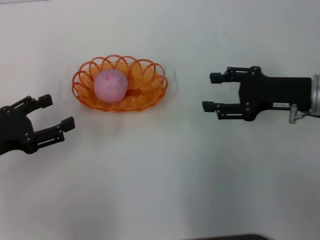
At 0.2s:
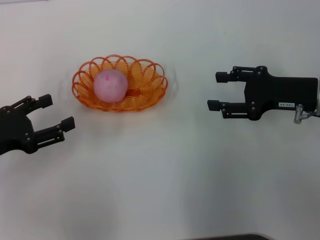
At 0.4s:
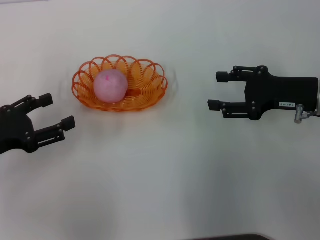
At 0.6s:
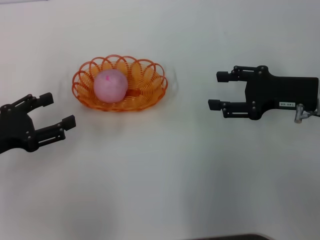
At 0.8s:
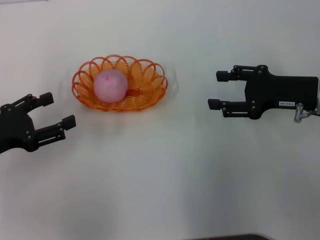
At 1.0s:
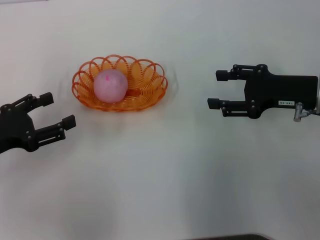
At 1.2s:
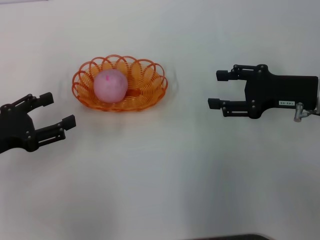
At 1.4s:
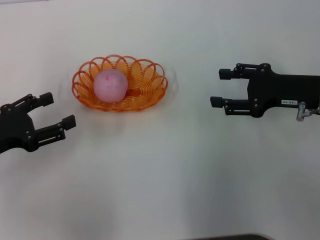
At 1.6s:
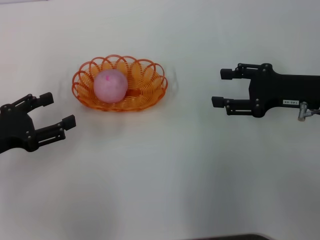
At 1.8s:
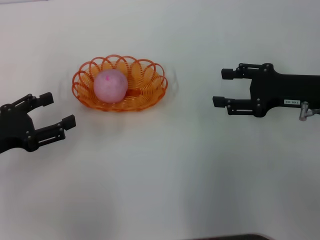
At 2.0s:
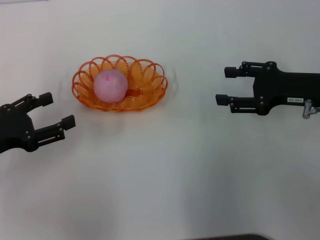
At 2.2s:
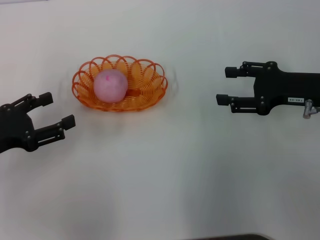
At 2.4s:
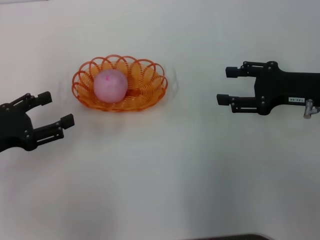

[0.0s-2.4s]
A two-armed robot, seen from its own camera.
0.0s to 1.2s: Neither gripper changes place.
1.2s to 2.4s: Both grippers stay about where they are.

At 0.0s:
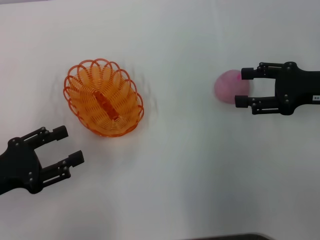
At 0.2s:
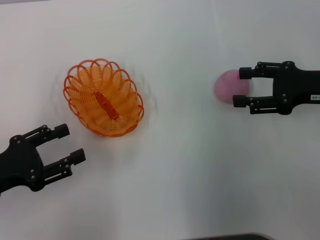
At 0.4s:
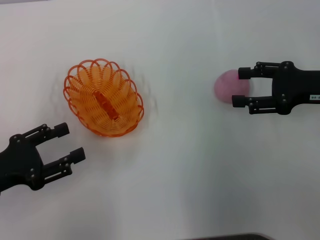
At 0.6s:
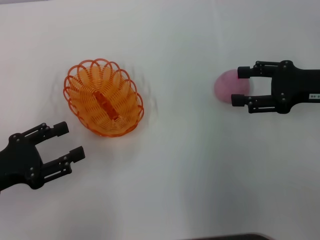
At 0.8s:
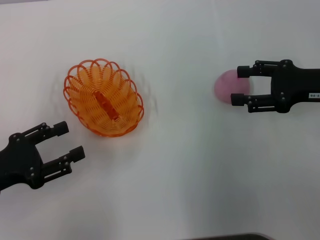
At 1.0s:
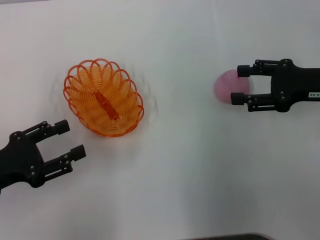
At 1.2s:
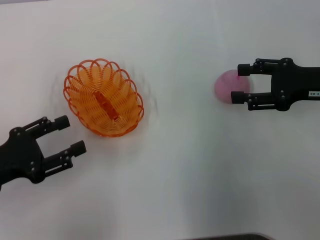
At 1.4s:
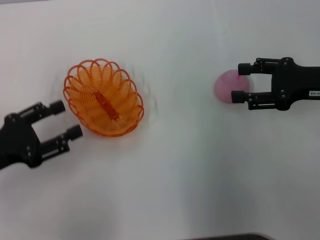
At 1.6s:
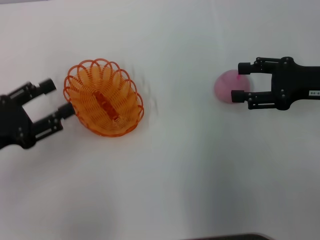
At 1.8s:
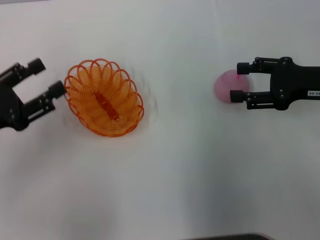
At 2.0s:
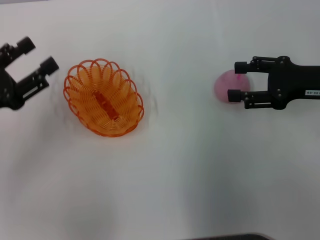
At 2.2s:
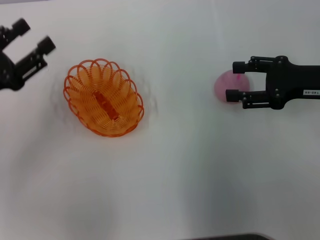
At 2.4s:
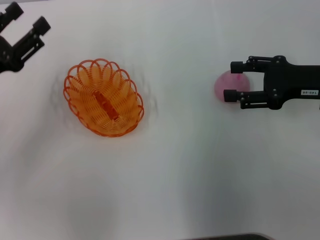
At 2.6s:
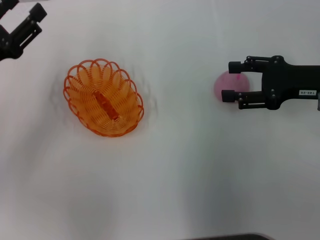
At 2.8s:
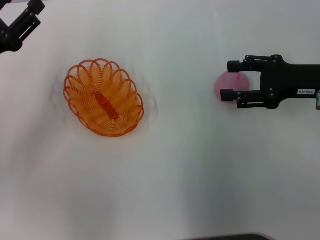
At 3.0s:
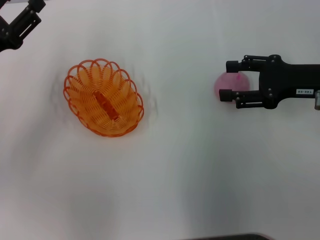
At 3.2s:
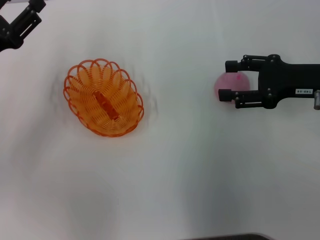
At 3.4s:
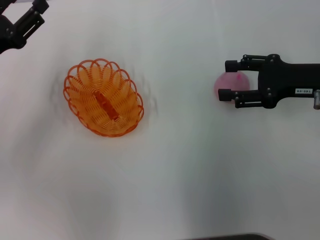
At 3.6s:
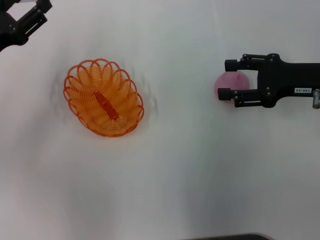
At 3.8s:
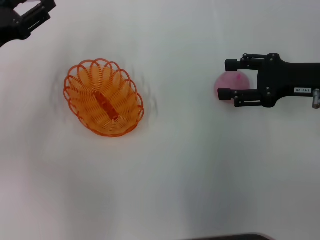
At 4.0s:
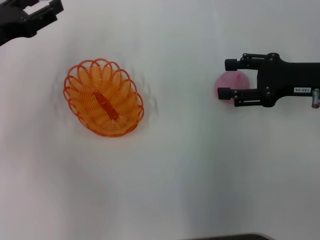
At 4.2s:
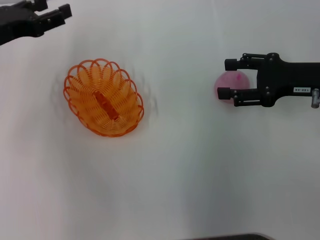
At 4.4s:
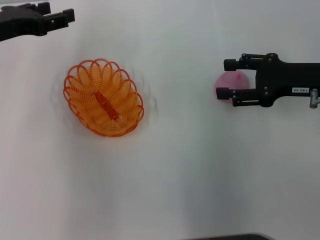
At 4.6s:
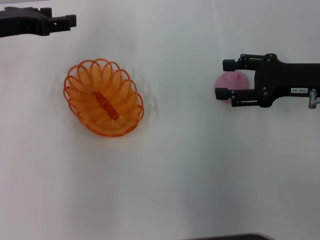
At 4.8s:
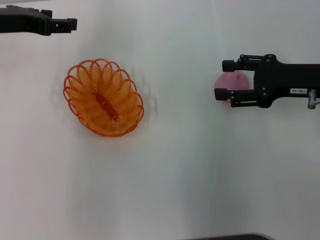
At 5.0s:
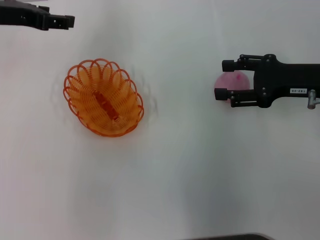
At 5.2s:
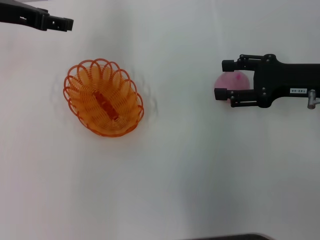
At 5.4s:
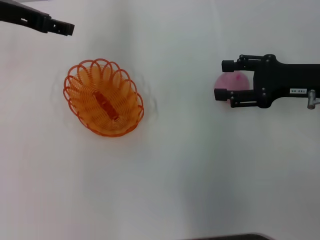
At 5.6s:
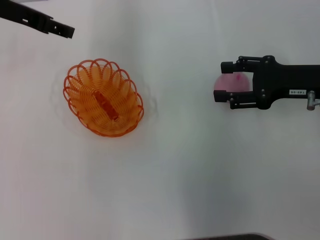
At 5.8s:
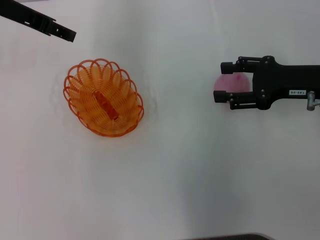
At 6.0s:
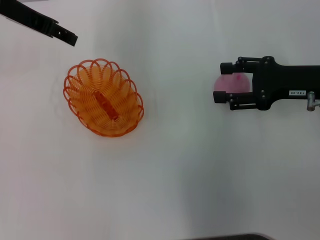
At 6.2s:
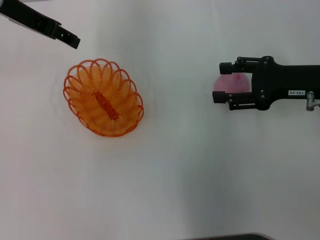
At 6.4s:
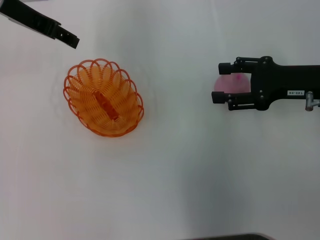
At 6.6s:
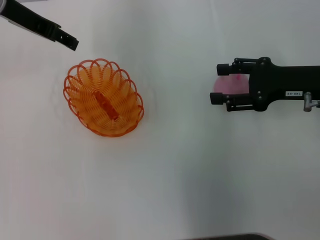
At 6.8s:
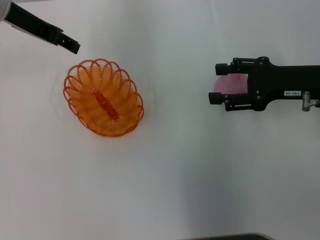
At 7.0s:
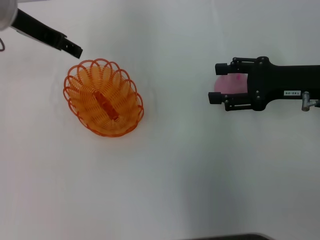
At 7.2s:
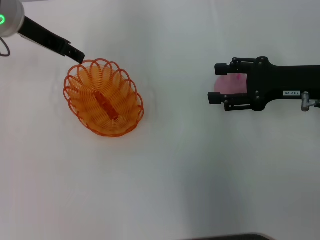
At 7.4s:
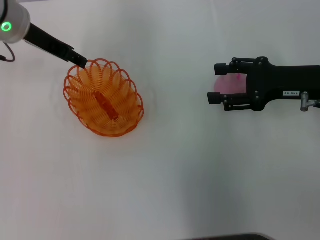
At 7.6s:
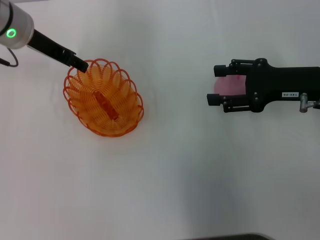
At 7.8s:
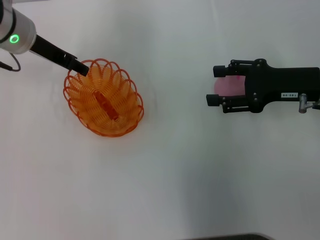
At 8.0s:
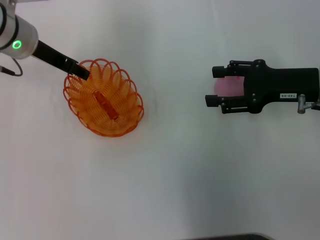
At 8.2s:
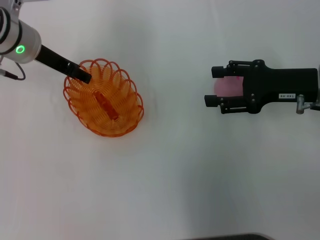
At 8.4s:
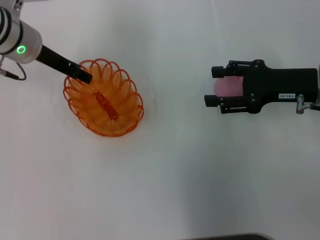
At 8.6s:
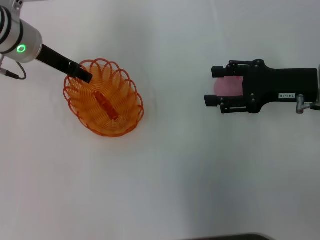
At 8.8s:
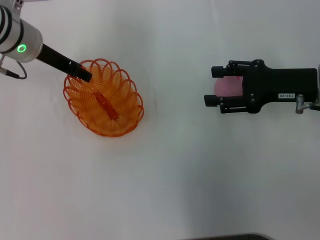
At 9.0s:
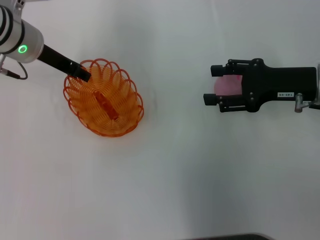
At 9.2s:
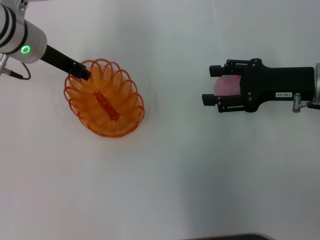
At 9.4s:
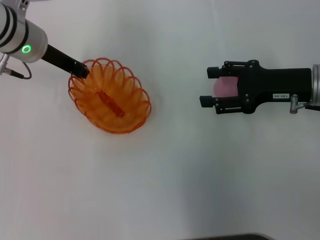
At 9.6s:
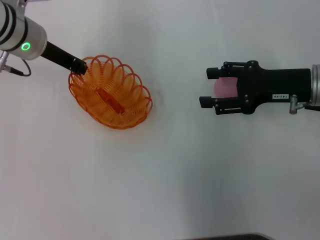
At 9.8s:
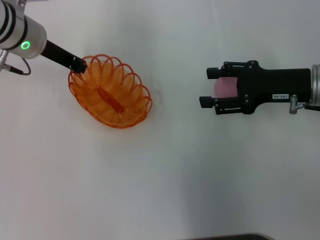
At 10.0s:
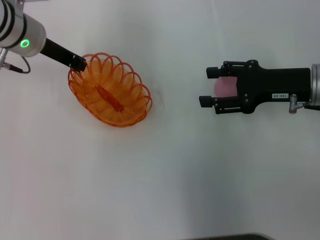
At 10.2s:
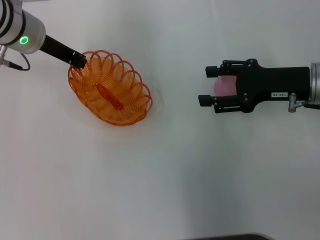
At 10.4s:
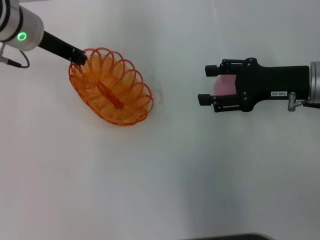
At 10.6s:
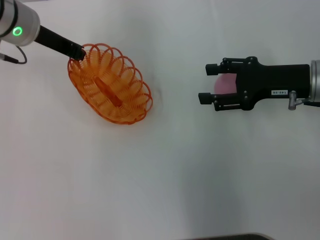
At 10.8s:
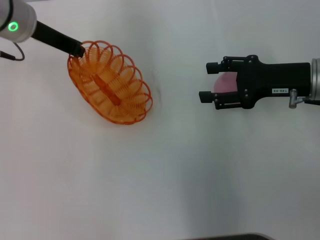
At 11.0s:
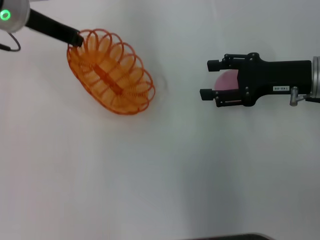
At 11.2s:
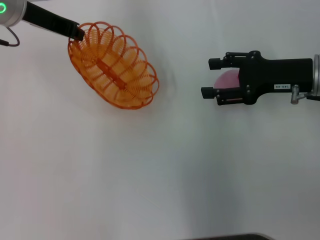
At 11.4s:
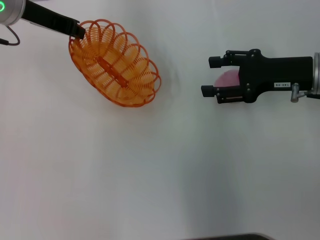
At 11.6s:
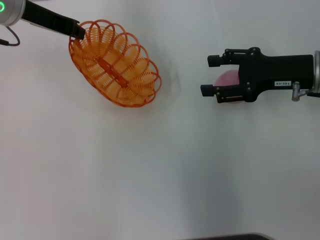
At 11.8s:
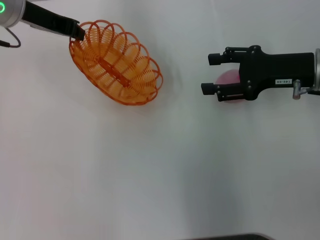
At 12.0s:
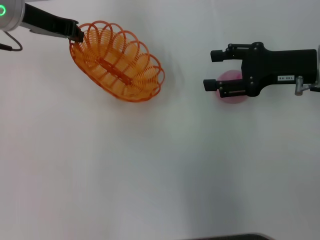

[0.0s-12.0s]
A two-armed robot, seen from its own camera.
Step, 0.0s to 11.2s: Pick up the basket with the left gripper.
0.0s to 1.6s: There are only small adjustments of the grippers.
1.6s to 3.0s: The left gripper heads forward, covering roughly 10 cm.
3.0s to 4.4s: The left gripper goes approximately 10 cm forward and upward.
4.4s to 6.0s: The left gripper travels upward and to the right by approximately 10 cm.
6.0s to 7.6s: The left gripper heads downward, covering approximately 5 cm.
7.6s to 9.0s: There are only small adjustments of the grippers.
9.0s to 10.4s: The left gripper closes up.
10.4s to 12.0s: There are only small adjustments of the grippers.

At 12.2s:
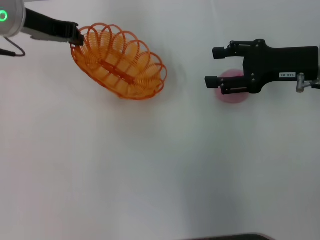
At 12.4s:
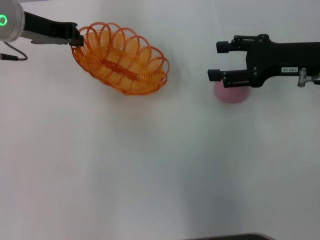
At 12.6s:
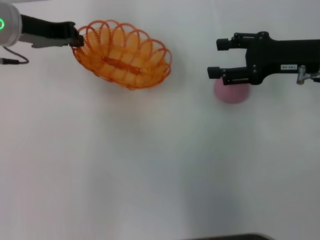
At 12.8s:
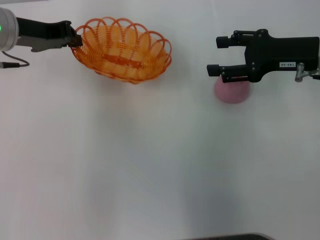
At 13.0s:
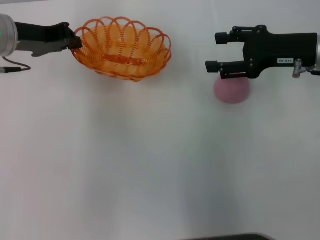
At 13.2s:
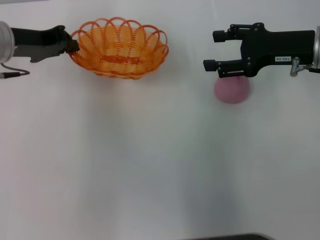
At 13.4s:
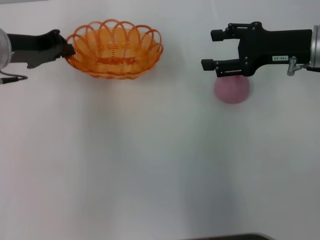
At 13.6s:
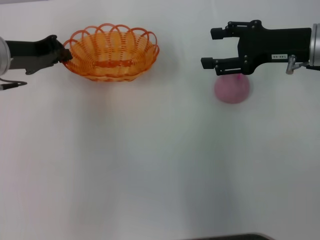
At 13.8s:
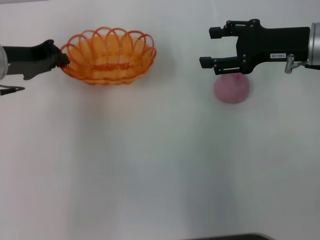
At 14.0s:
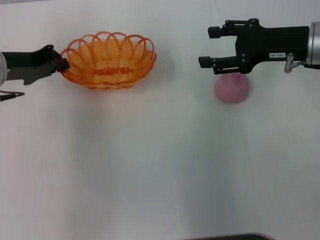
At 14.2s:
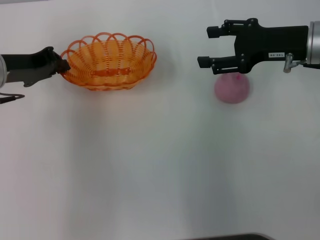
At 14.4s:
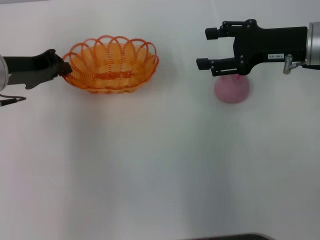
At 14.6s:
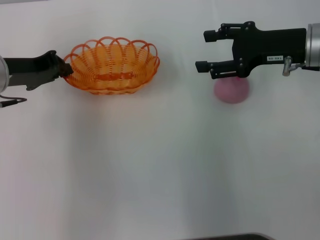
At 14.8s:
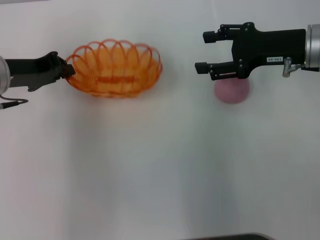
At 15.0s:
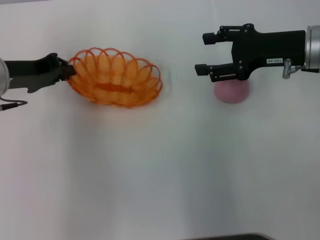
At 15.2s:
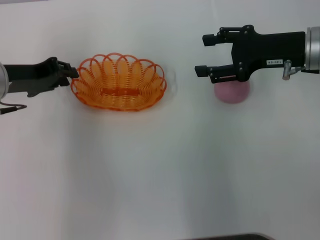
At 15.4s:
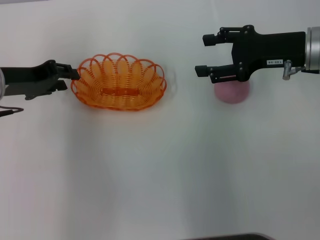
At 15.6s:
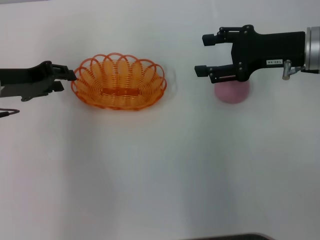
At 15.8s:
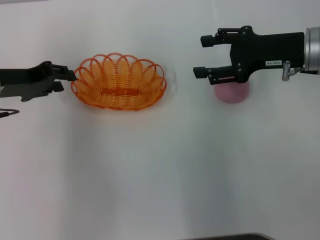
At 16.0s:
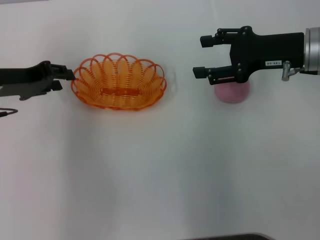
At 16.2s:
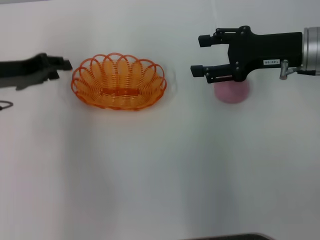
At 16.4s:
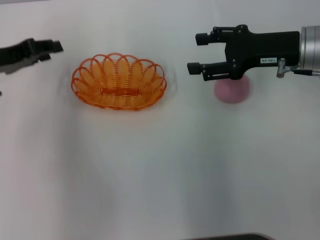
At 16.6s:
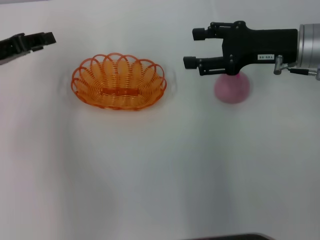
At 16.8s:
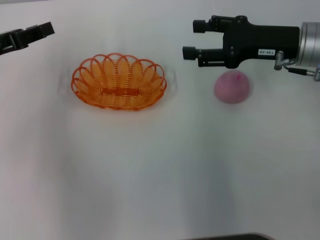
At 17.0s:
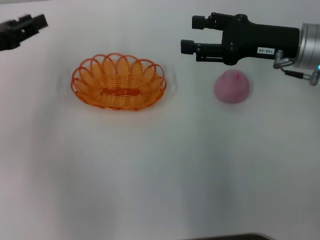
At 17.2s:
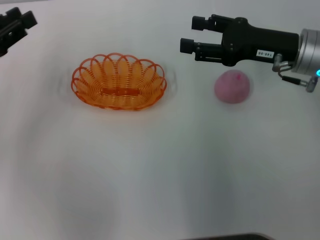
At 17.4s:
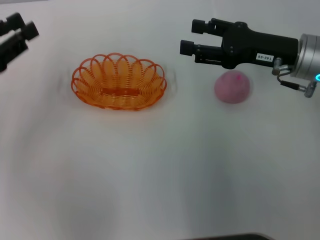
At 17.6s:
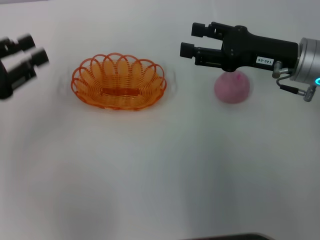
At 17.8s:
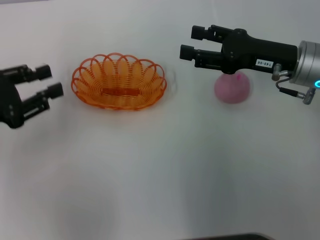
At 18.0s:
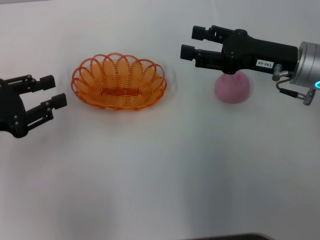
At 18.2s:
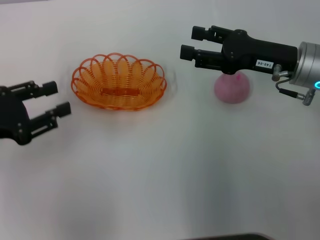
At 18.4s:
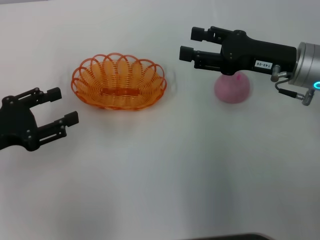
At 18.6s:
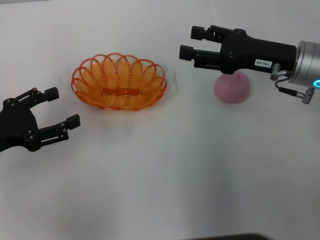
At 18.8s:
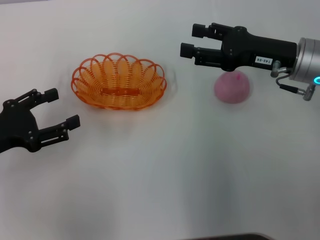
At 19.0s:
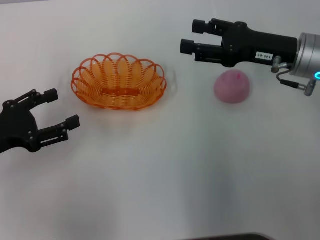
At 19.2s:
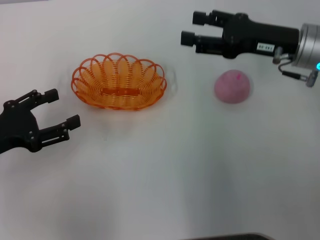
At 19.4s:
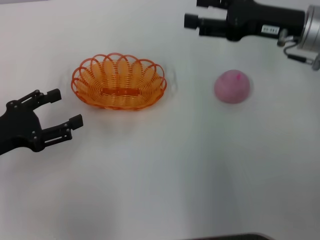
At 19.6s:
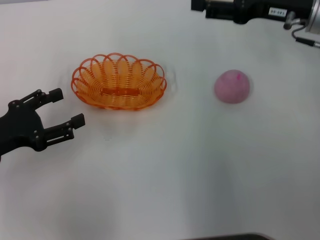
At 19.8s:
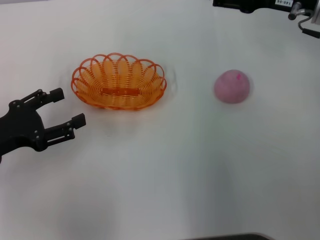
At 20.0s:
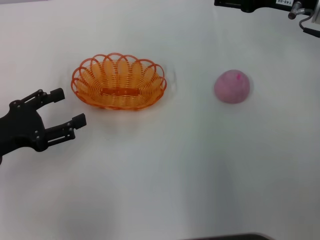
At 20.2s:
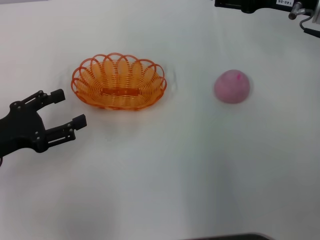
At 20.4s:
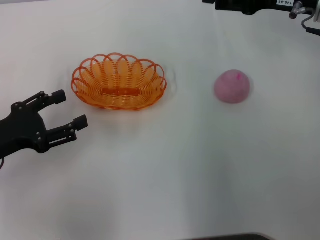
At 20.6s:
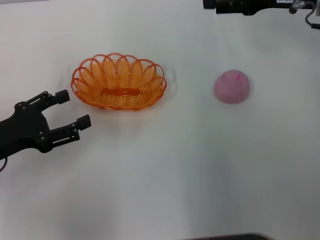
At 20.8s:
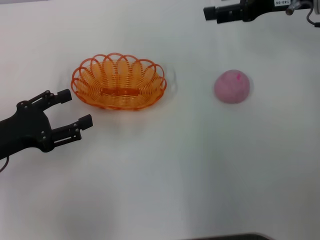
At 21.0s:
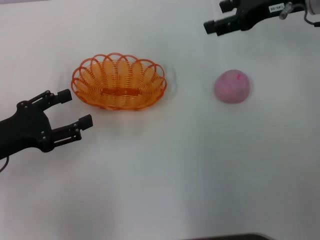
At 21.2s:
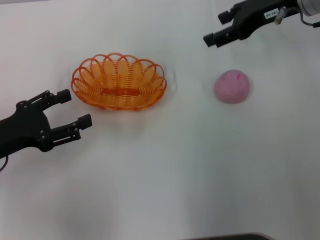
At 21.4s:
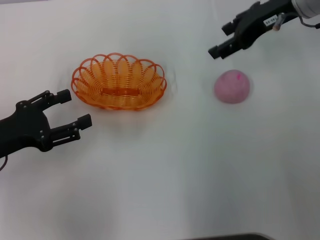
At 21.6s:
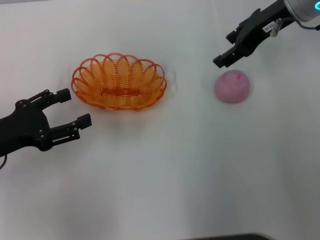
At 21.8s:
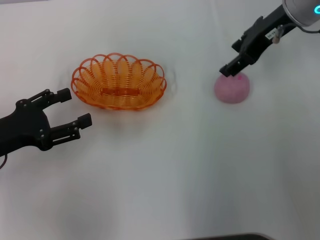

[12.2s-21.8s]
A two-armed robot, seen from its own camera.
Step, 12.2s to 16.4s: Place the basket in the center of view with the left gripper.
12.2s to 13.8s: The left gripper goes about 5 cm downward.
13.8s to 15.4s: There are only small adjustments of the grippers.
15.4s to 17.0s: The left gripper changes place by approximately 5 cm.
17.0s to 18.6s: The left gripper heads backward and downward, covering some 10 cm.
18.6s to 20.2s: The right gripper travels upward by about 5 cm.
20.2s to 21.8s: The right gripper travels to the left by about 5 cm.
